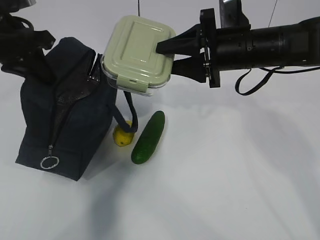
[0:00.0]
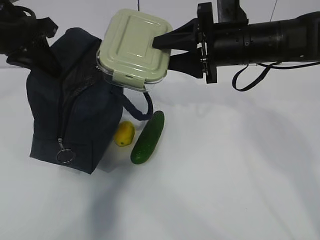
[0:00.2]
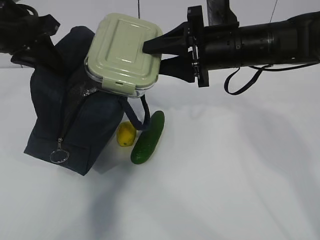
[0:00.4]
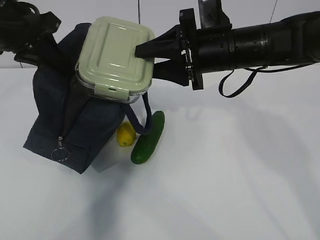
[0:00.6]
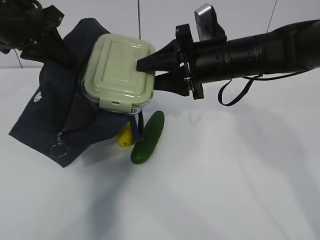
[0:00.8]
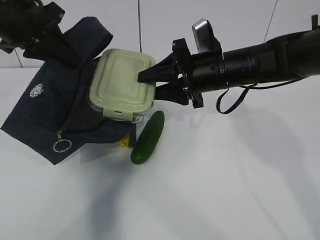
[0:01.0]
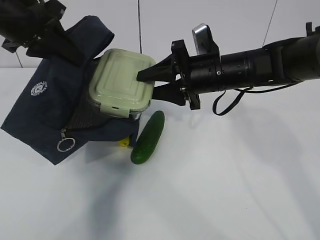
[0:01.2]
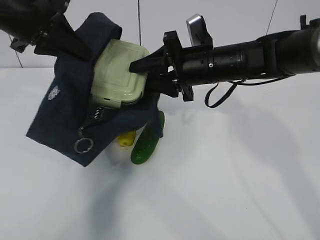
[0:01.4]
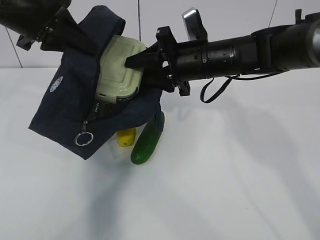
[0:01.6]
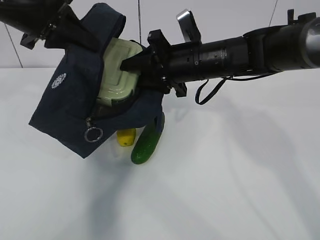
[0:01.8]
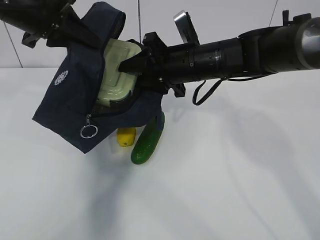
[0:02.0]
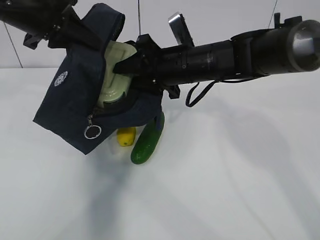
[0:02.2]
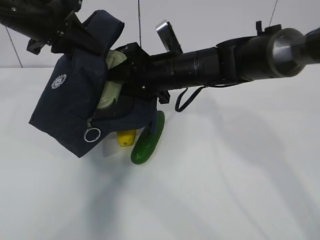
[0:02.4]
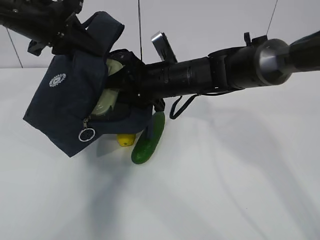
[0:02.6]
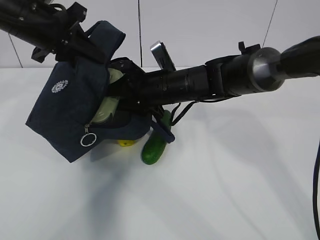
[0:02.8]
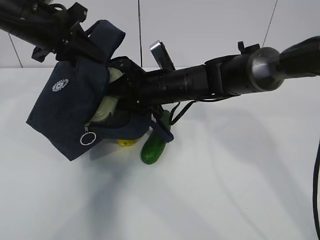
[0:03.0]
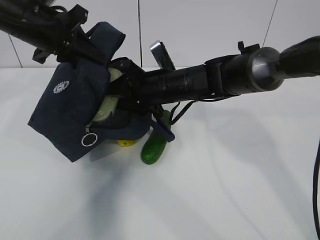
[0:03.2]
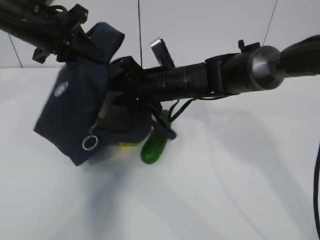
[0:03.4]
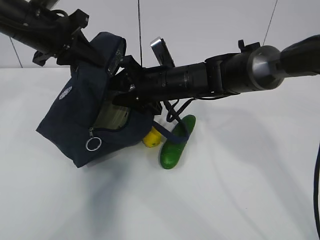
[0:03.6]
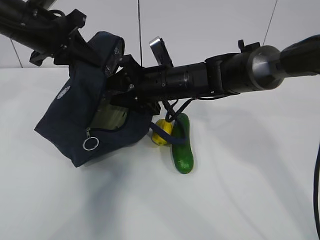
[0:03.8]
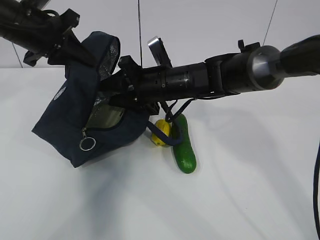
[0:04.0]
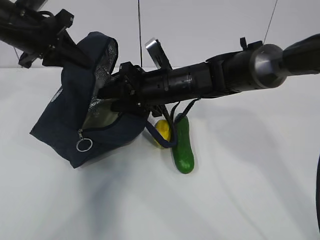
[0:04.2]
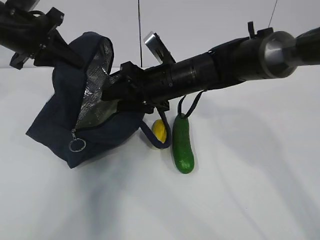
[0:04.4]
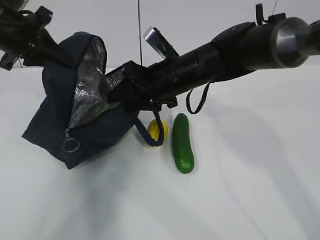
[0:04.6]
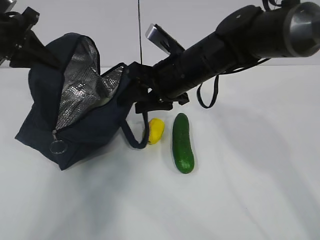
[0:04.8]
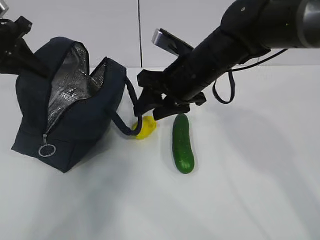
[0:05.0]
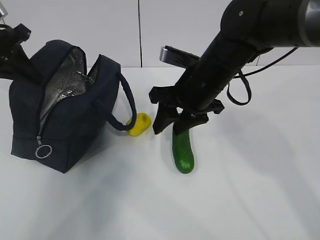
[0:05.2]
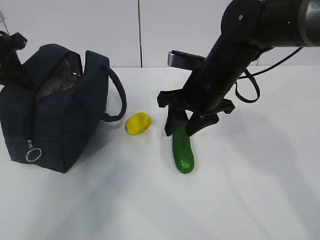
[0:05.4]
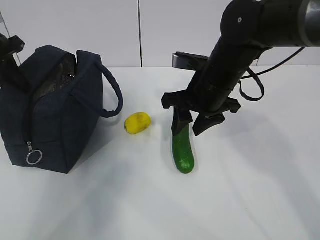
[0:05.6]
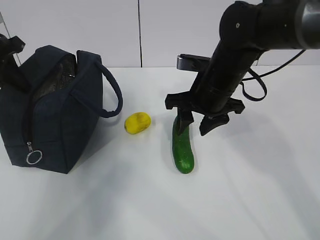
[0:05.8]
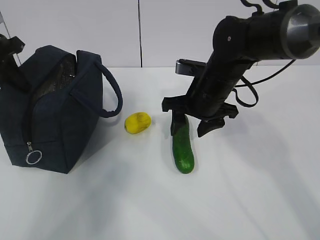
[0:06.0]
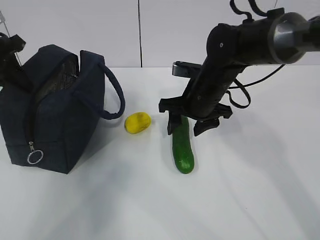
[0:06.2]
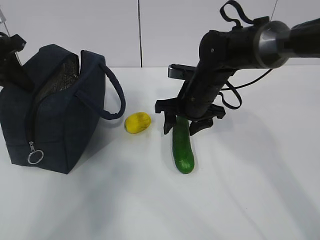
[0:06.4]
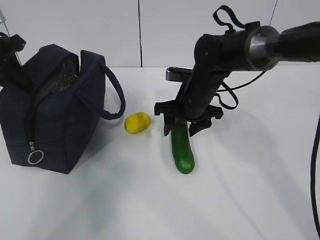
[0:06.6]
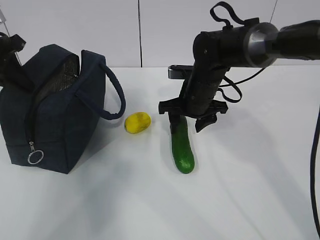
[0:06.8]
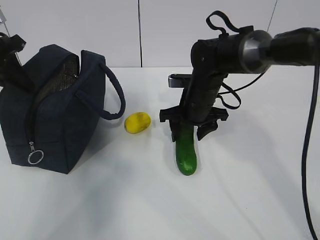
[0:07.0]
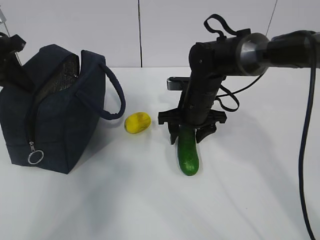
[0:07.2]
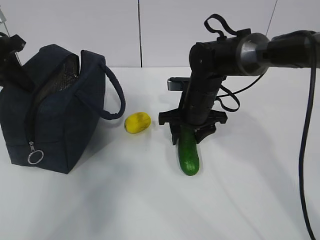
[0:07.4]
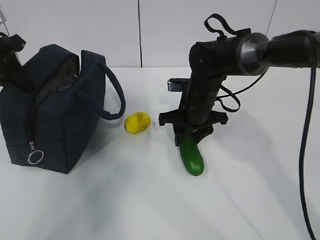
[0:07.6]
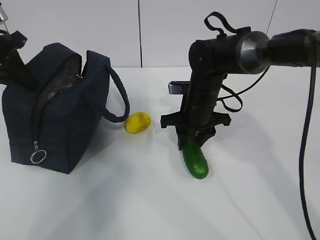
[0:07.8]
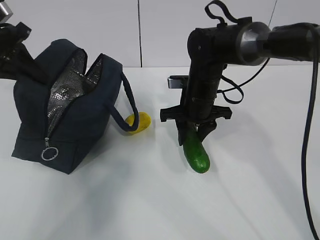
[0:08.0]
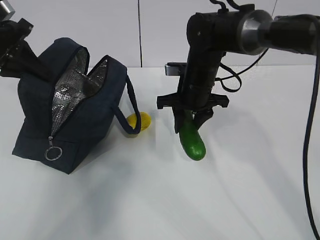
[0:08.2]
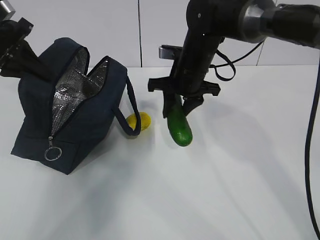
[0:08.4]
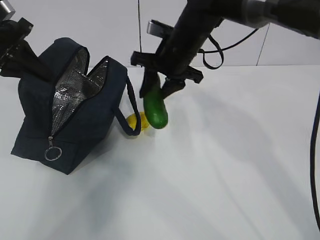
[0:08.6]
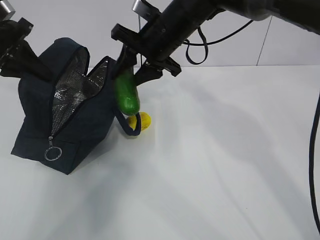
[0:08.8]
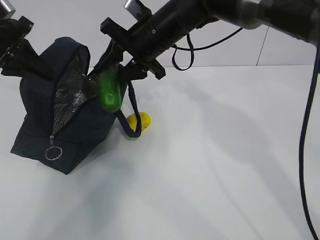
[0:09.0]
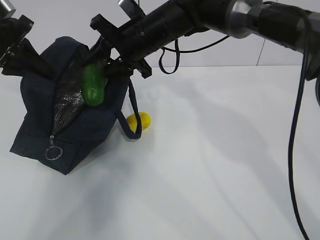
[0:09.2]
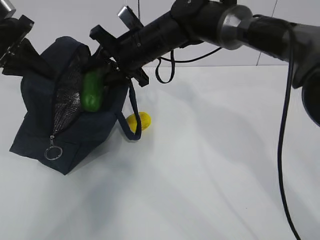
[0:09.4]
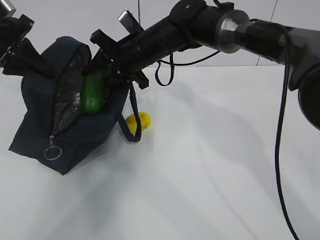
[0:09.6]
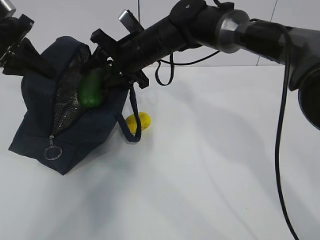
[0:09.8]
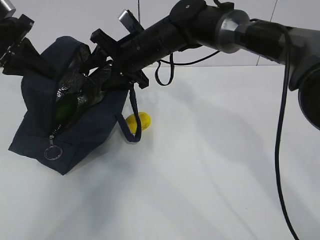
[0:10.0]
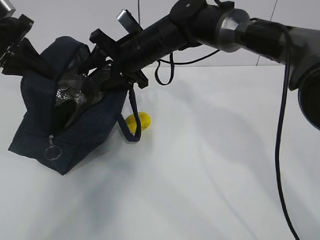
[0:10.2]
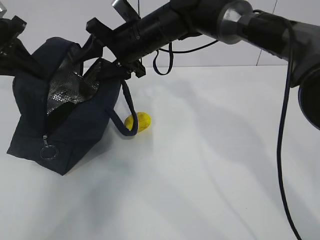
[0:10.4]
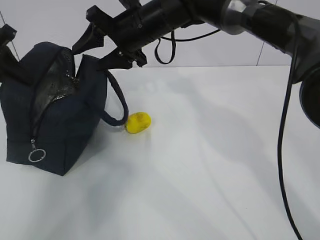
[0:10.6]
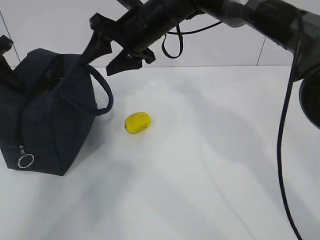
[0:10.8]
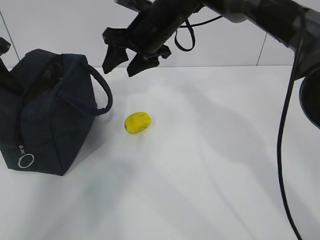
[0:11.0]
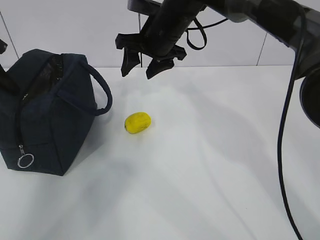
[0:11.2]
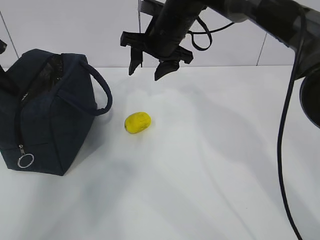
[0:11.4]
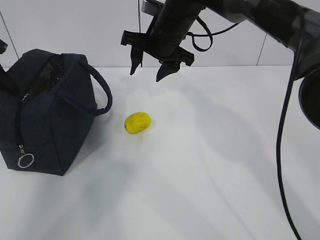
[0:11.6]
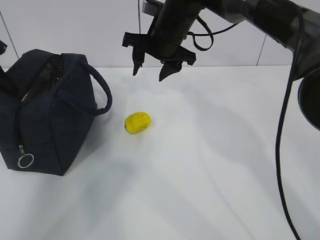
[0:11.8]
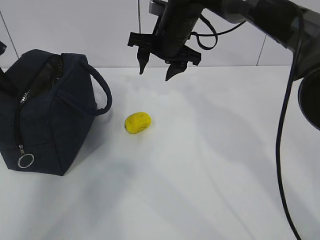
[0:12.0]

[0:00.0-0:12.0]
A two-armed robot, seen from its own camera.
Step, 0:00.0 to 0:02.0: Grab the cucumber with your right hand.
Step, 0:02.4 to 0:04.4: Place it into the bag with your right hand.
Step, 0:04.6 to 0:10.6: Grab the lemon with your right hand.
0:00.0 to 0:01.6: The right gripper shifts some 5 cm to the left.
0:01.6 to 0:03.0: The right gripper shifts approximately 10 cm to the left and downward.
0:04.4 to 0:06.0: The right gripper goes roughly 5 cm to the right, while the left gripper heads to the left, covering approximately 5 cm.
0:06.0 to 0:07.6: The right gripper heads downward, covering roughly 5 cm.
0:07.6 to 0:09.0: The right gripper goes some 15 cm upward and to the left.
0:10.4 to 0:12.0: The left gripper ends up some 5 cm from where it was; the right gripper travels to the right by roughly 5 cm.

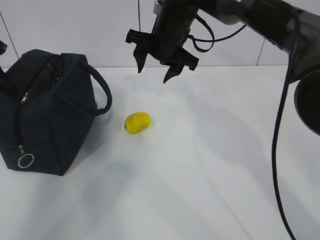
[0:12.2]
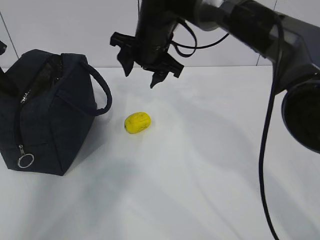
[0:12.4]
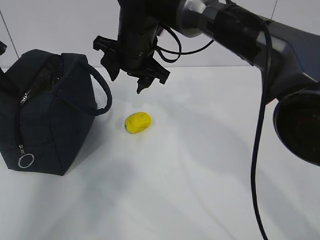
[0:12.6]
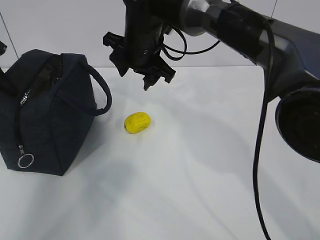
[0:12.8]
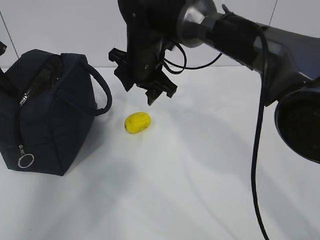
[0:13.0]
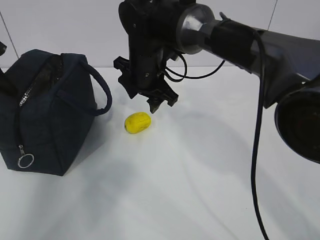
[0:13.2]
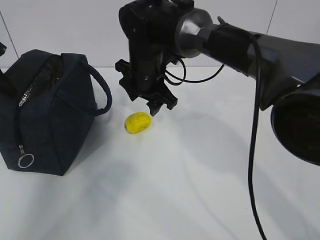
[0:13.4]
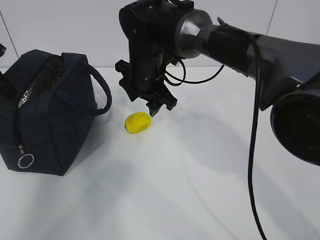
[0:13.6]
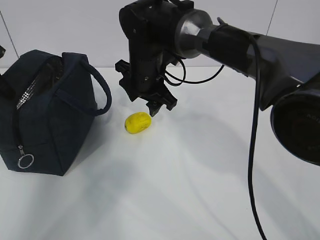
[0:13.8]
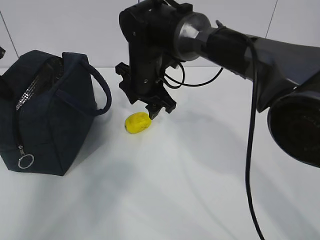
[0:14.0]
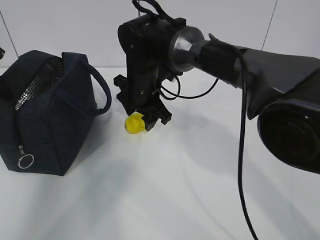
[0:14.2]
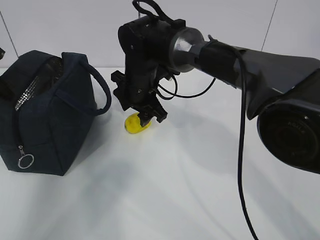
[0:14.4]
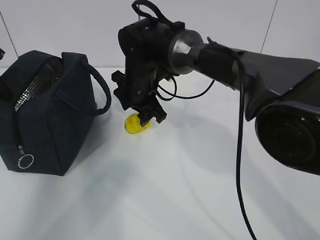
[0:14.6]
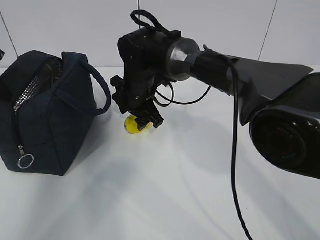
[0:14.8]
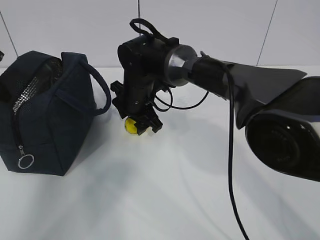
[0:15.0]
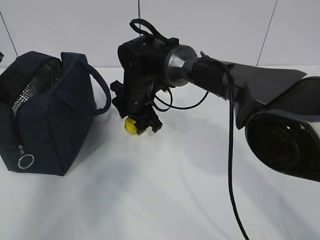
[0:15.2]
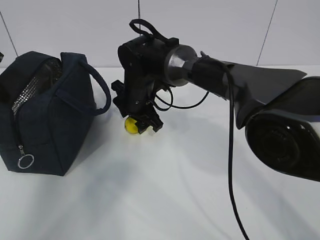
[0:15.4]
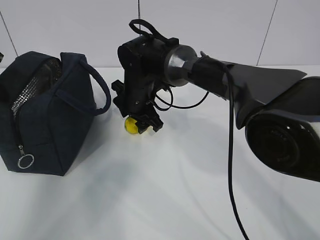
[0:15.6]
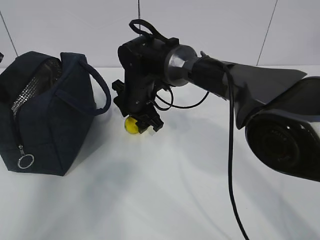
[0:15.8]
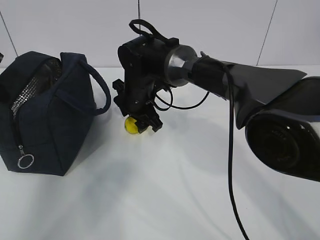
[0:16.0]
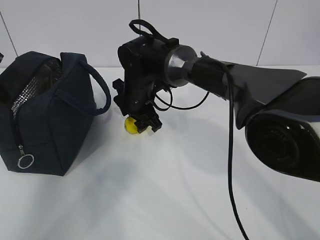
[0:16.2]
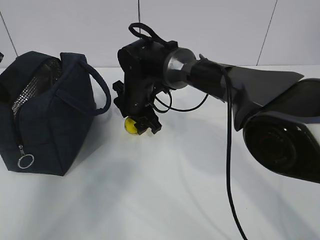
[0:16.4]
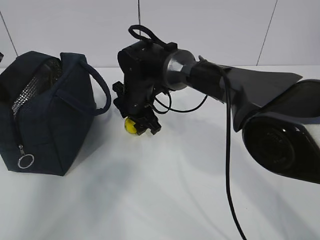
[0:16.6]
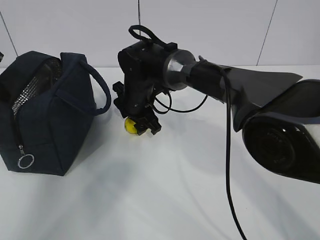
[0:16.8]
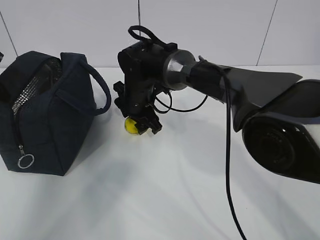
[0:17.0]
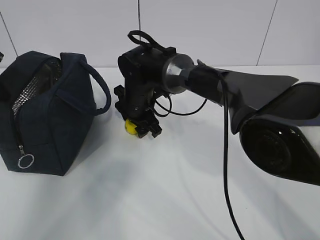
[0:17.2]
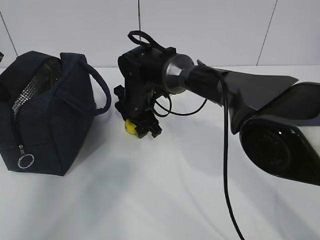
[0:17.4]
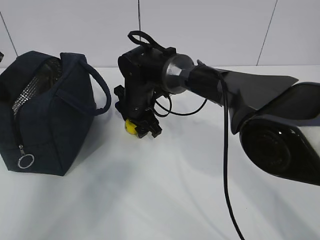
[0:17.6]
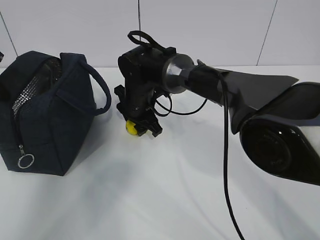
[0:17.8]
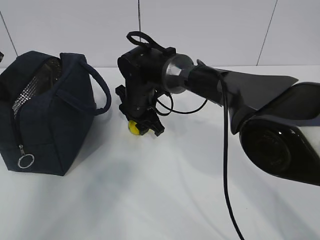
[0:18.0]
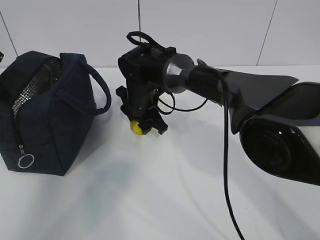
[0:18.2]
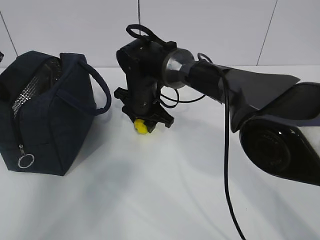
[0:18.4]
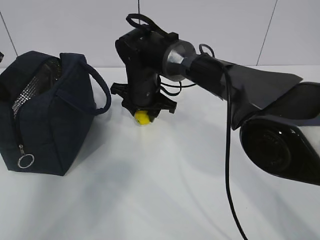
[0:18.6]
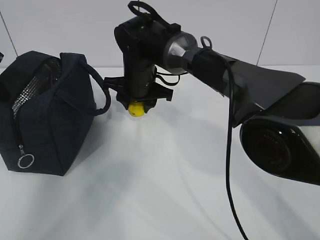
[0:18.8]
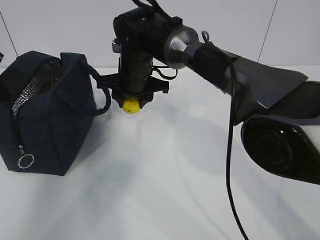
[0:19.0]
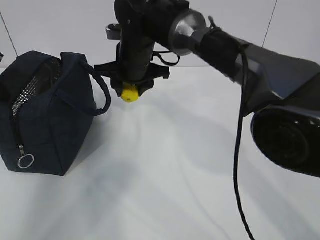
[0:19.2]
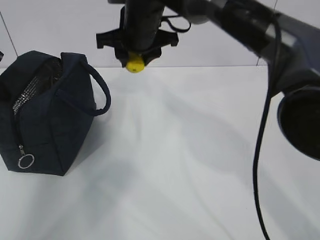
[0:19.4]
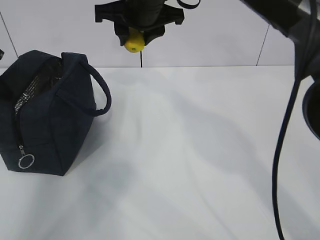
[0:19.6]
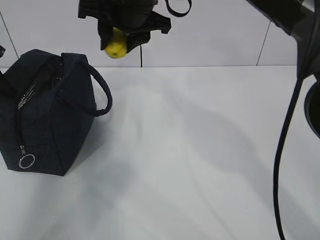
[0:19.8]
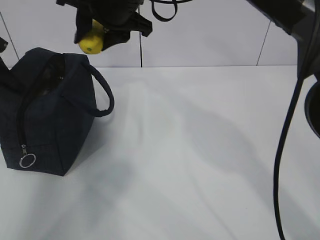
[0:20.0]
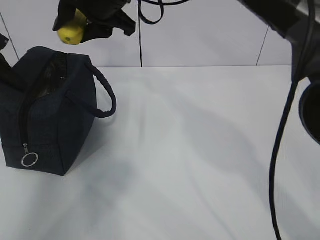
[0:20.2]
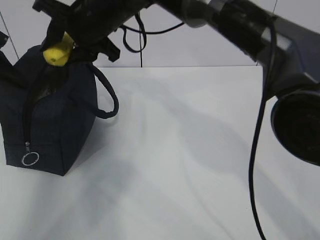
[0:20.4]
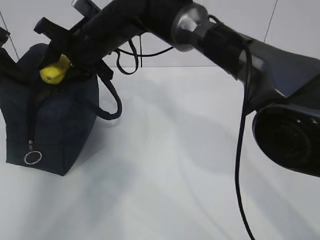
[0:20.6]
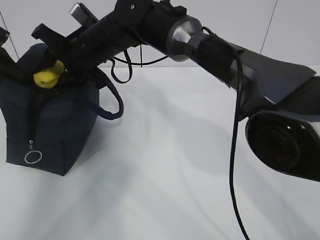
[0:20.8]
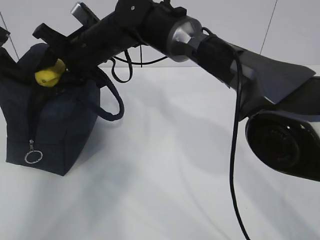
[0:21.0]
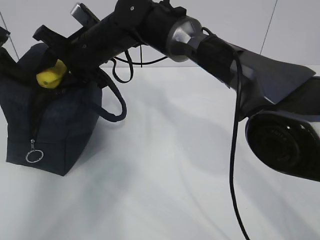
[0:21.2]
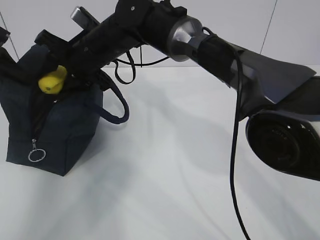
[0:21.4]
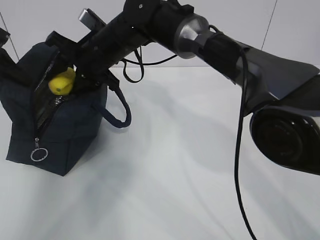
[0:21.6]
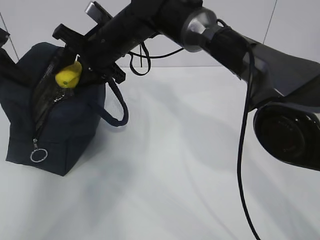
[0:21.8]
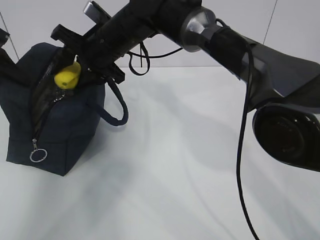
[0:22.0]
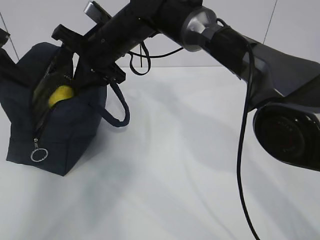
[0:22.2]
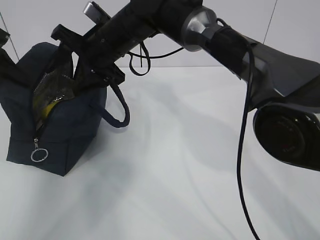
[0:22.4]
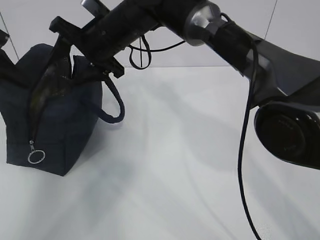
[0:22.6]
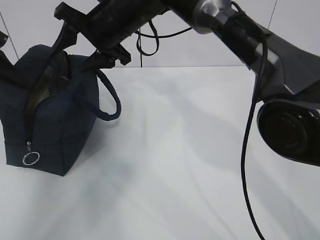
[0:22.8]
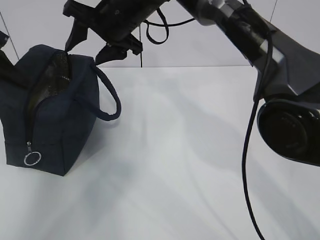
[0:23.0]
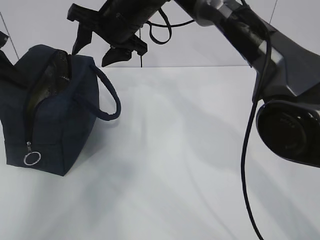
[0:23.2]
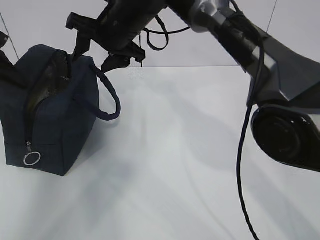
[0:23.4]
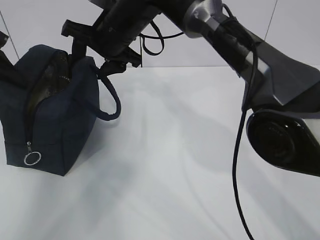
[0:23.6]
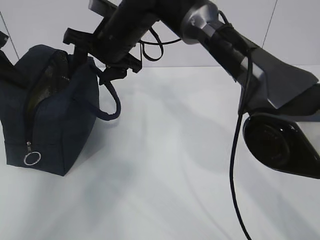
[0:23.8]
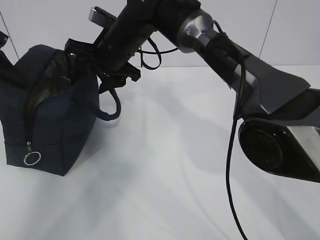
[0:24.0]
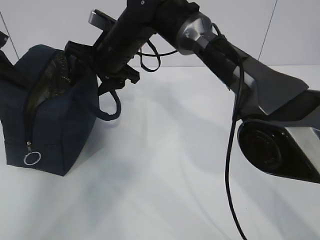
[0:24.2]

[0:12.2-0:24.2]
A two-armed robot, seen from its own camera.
Step, 0:14.8 to 0:16.4: Grab the lunch bag with your right hand.
Step, 0:16.6 to 0:18.8: Move the lunch bag to the right.
0:12.2 to 0:13.8: The right gripper shifts by roughly 5 cm.
0:13.8 to 0:15.2: The right gripper goes roughly 5 cm downward.
0:15.2 to 0:16.6: Both grippers stay put.
0:16.6 to 0:18.2: There are only small adjustments of the grippers.
0:18.2 to 0:19.8: The right gripper heads upward, covering about 20 cm.
0:19.8 to 0:21.2: The right gripper heads downward and to the left, covering approximately 10 cm.
0:21.2 to 0:22.6: The grippers stay close to where they were, moving slightly.
